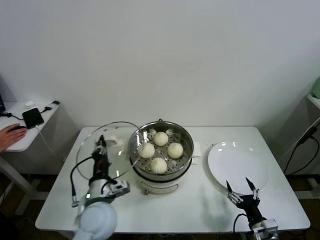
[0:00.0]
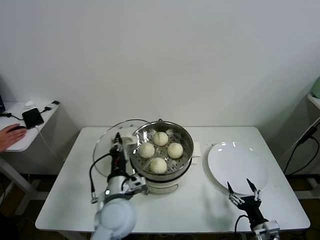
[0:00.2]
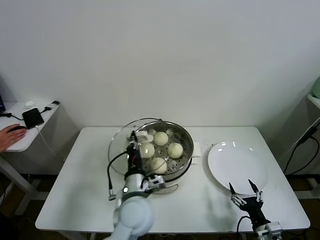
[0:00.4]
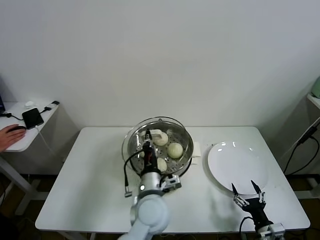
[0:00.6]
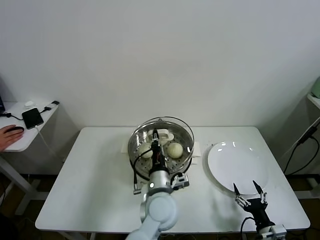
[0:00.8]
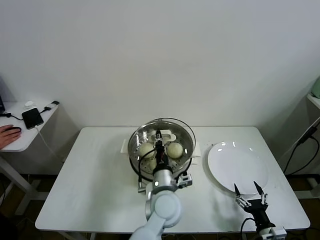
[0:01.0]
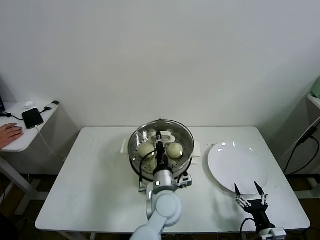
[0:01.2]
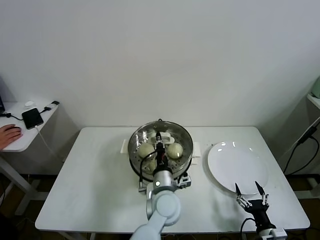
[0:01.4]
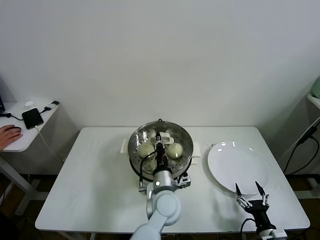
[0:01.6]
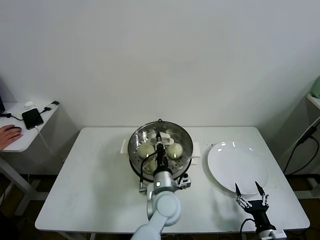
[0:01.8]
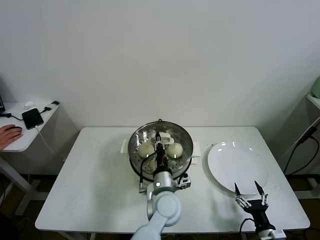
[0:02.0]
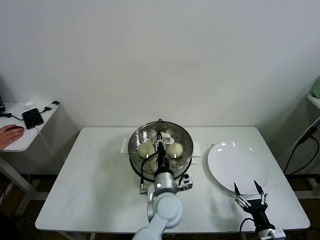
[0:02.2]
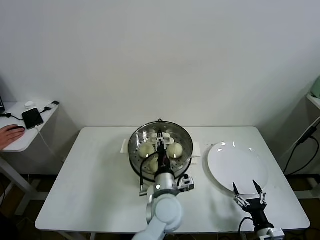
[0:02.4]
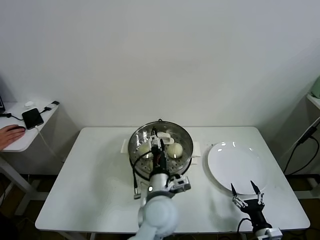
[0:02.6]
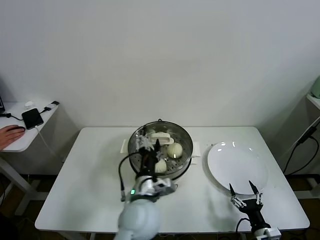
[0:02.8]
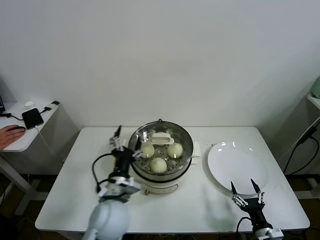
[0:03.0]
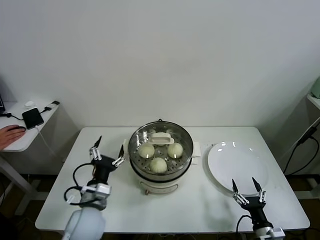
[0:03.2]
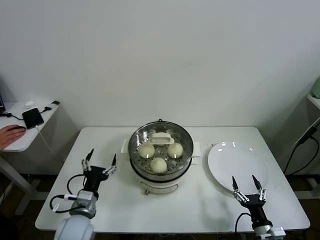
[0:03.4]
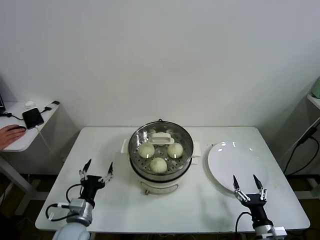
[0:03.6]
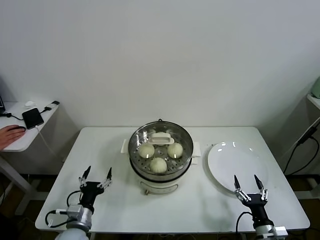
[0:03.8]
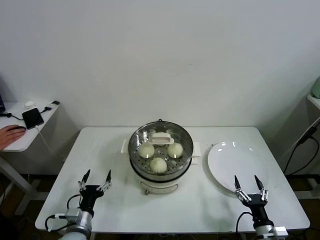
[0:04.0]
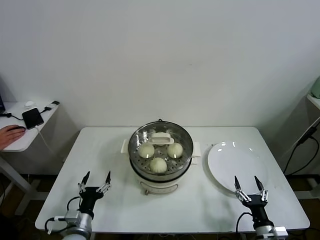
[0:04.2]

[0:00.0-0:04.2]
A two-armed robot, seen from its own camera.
Task of the whole recording: take steamed baozi put them in steamer.
Step, 0:00.0 to 0:02.2: Place the pot lid on the steamer with left gripper.
0:00.0 to 0:01.4: The left gripper moves to the right, approximately 20 cm.
0:01.4 to 0:02.8: The left gripper moves upward, some 5 cm, and opens.
0:02.8 to 0:04.2: The left gripper is displaced to the left and downward by about 30 cm.
